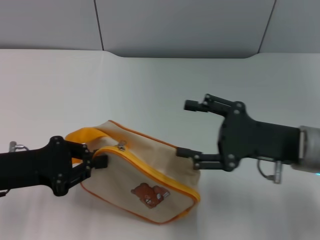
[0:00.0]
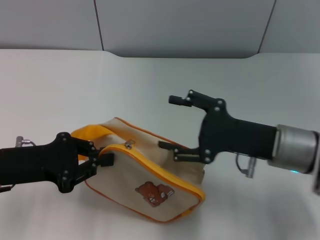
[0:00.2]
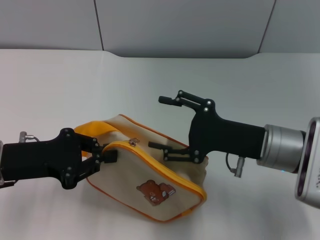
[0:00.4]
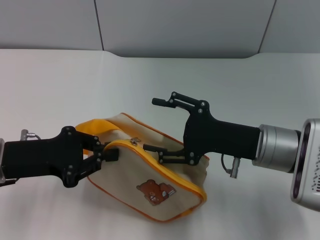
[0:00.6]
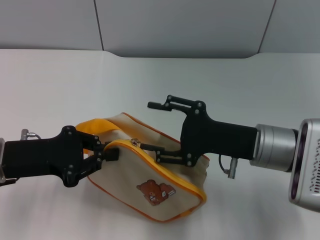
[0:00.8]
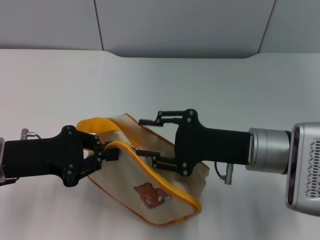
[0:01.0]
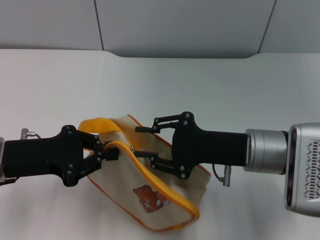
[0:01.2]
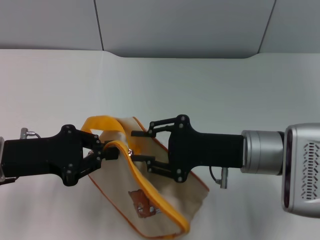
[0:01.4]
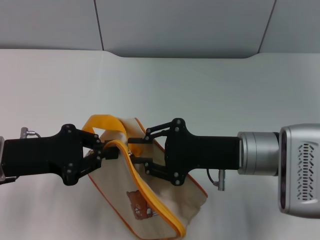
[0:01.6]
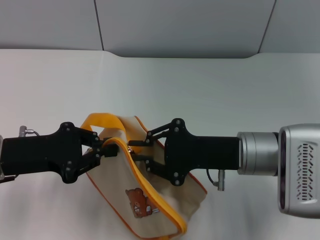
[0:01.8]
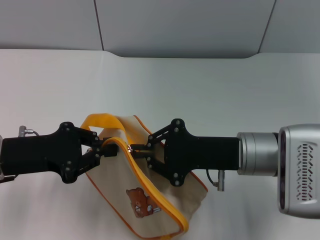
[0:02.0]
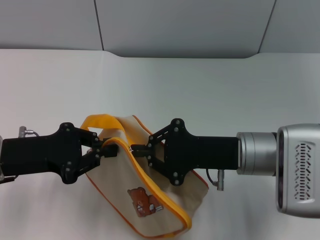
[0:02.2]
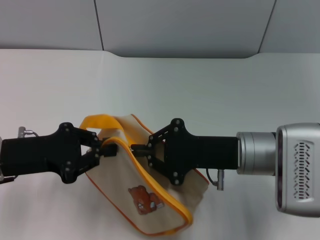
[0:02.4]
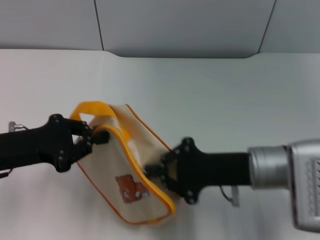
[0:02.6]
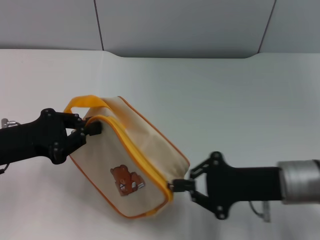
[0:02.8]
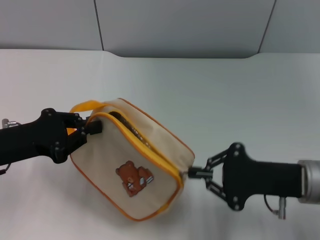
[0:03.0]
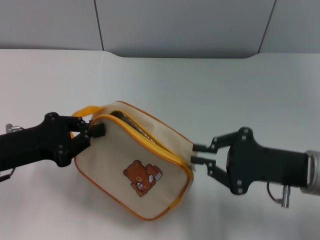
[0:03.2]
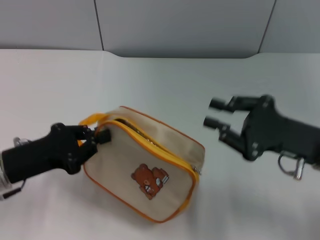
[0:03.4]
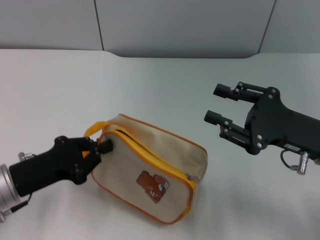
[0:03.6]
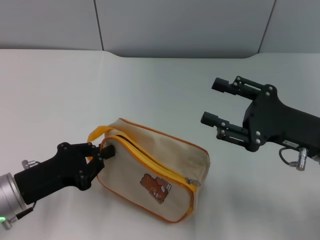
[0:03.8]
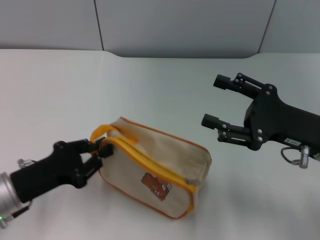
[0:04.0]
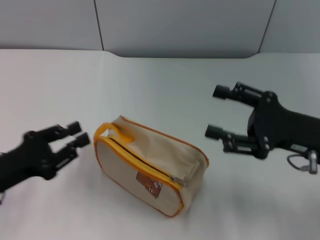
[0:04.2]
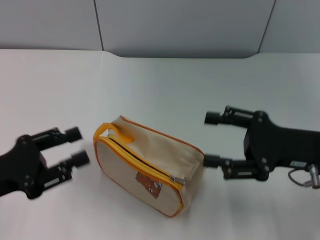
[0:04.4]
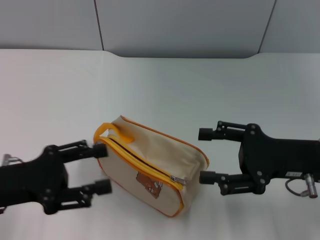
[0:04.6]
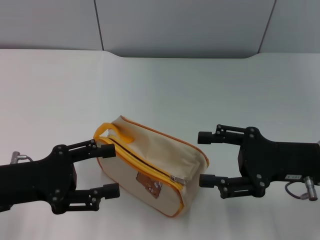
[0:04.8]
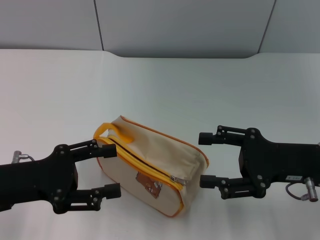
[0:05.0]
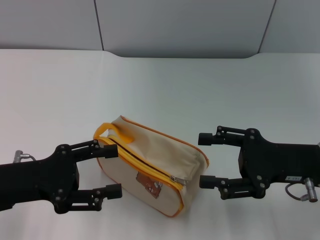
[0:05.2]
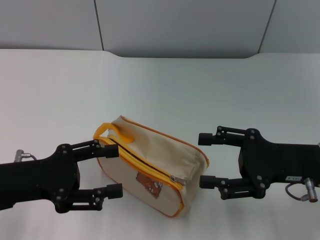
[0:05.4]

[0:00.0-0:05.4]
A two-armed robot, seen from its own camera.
Step, 0:00.0 to 0:03.2: Unzip the zipper of bag with right gripper.
Step, 0:03.4 to 0:04.0: Place the bag on the table with left gripper.
0:00.0 to 0:01.4: The right gripper goes approximately 5 cm to the left, and closes.
0:01.4 to 0:02.8: The right gripper travels to the right by roughly 5 cm, and closes.
0:02.8 to 0:04.0: The right gripper ends up some 5 cm from where it was, and opens its fingers. Meanwhile the left gripper shifts about 5 cm downward.
0:04.0 to 0:05.4: The left gripper heads upward, covering about 5 cm, and opens up.

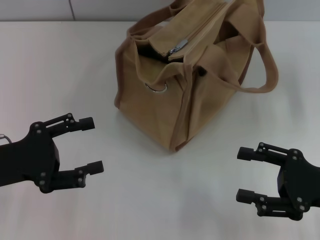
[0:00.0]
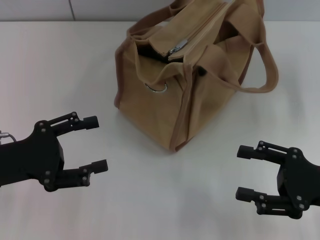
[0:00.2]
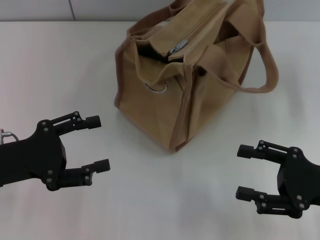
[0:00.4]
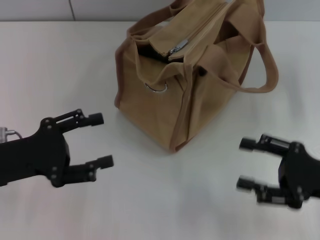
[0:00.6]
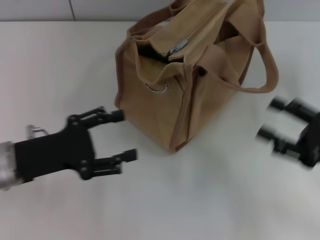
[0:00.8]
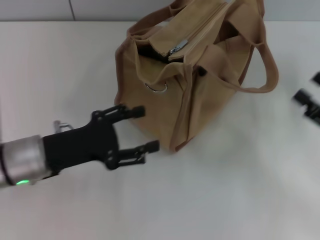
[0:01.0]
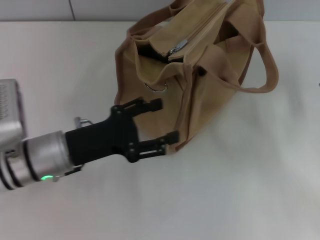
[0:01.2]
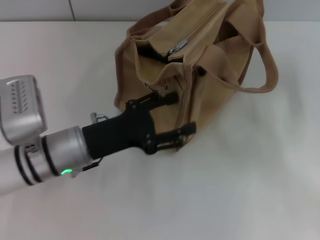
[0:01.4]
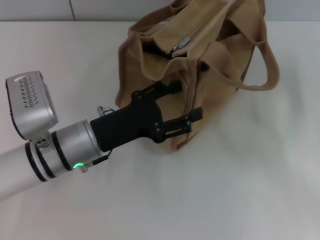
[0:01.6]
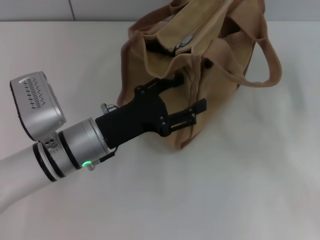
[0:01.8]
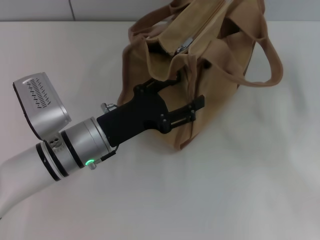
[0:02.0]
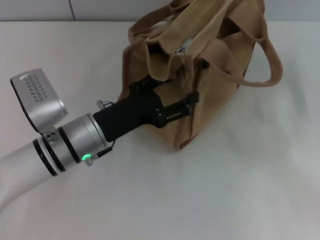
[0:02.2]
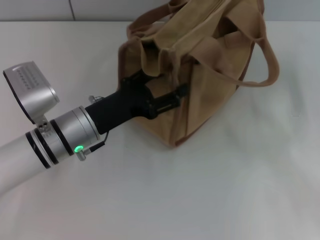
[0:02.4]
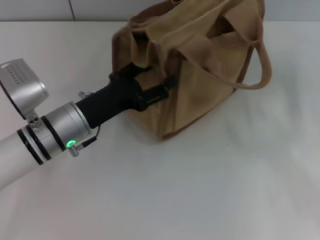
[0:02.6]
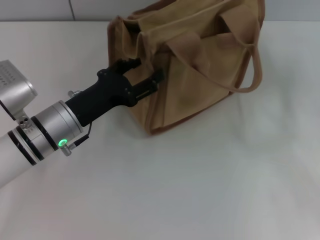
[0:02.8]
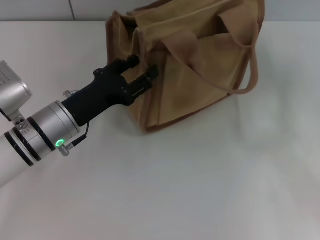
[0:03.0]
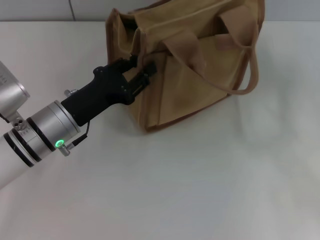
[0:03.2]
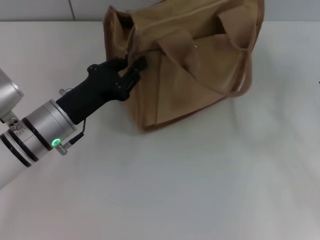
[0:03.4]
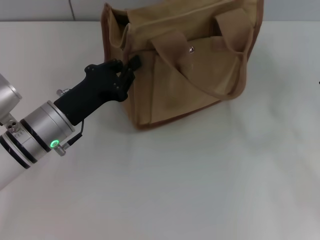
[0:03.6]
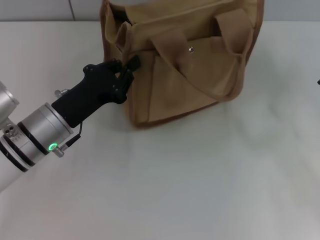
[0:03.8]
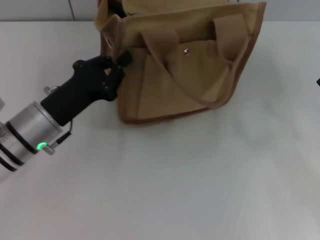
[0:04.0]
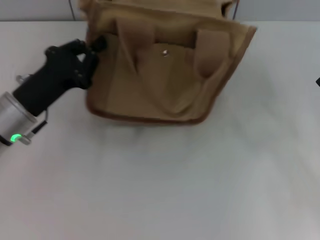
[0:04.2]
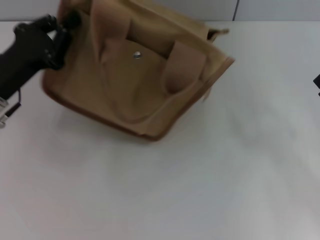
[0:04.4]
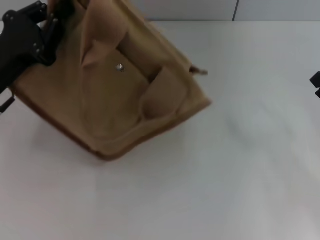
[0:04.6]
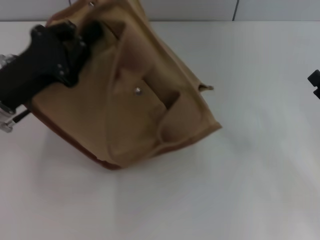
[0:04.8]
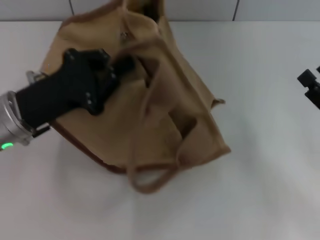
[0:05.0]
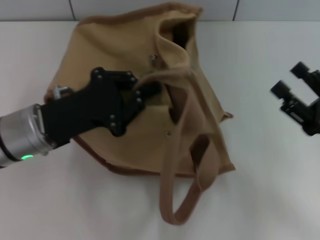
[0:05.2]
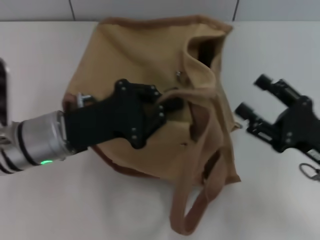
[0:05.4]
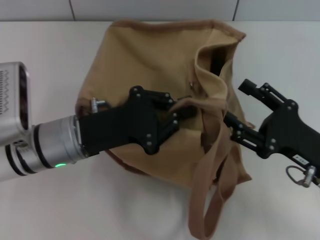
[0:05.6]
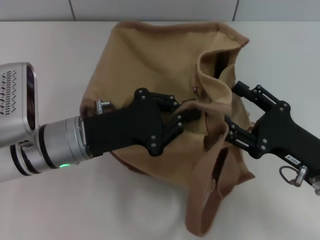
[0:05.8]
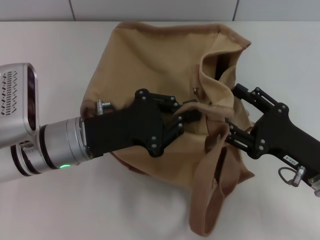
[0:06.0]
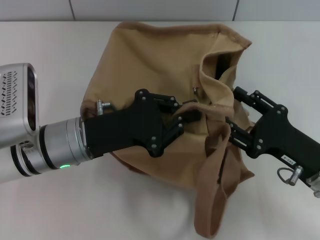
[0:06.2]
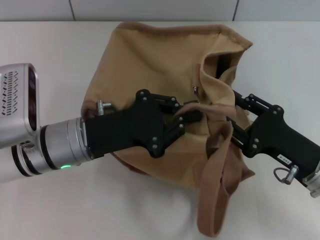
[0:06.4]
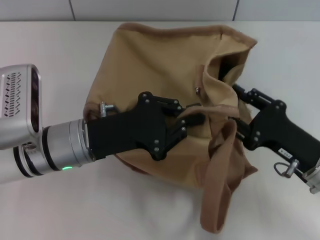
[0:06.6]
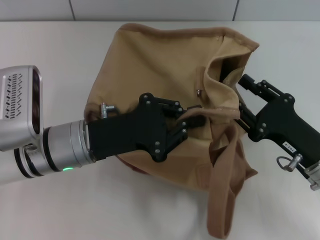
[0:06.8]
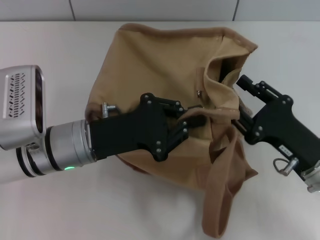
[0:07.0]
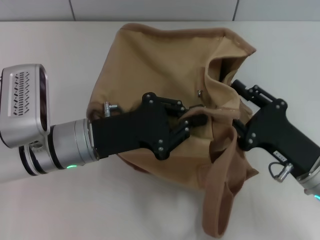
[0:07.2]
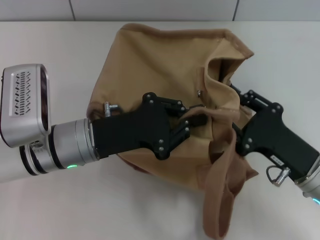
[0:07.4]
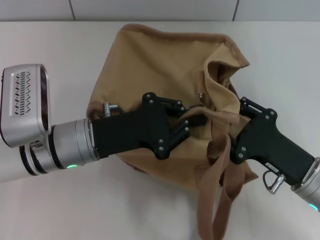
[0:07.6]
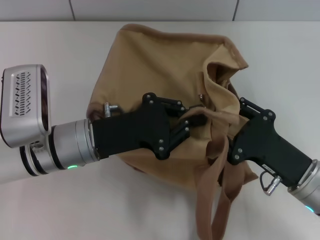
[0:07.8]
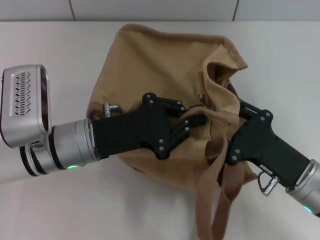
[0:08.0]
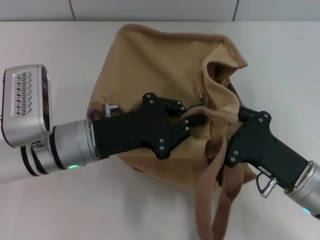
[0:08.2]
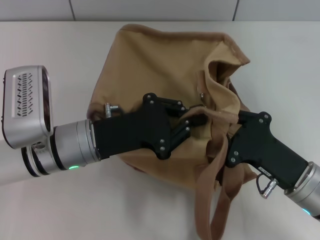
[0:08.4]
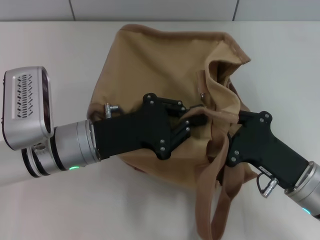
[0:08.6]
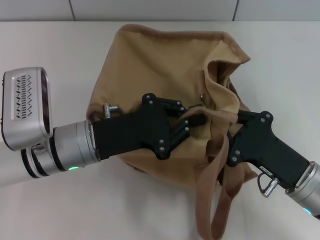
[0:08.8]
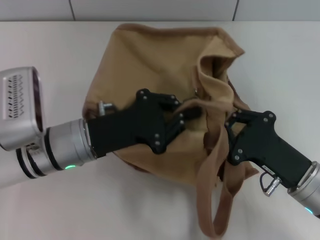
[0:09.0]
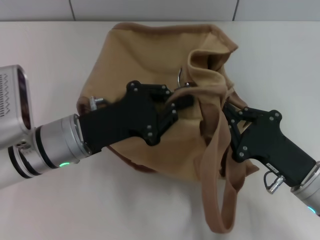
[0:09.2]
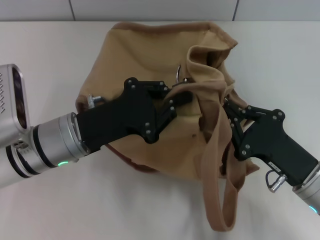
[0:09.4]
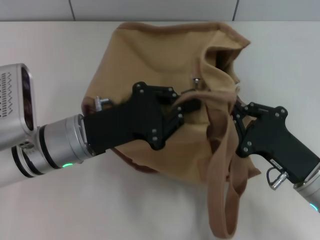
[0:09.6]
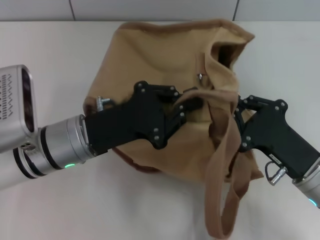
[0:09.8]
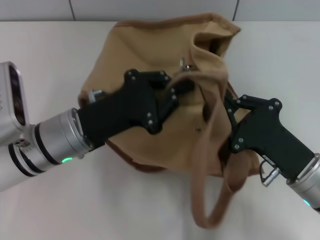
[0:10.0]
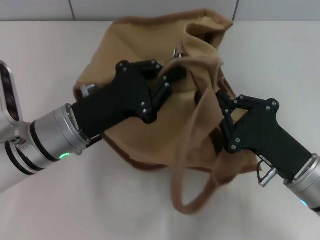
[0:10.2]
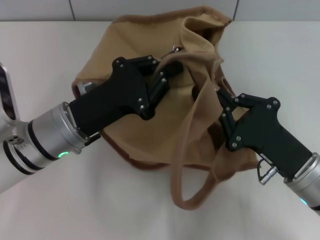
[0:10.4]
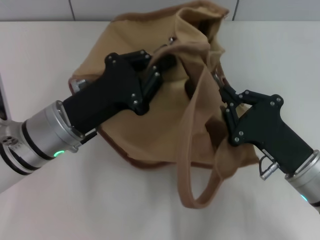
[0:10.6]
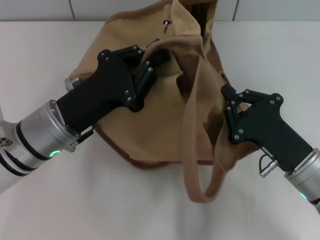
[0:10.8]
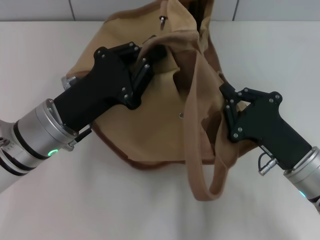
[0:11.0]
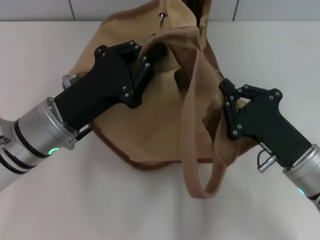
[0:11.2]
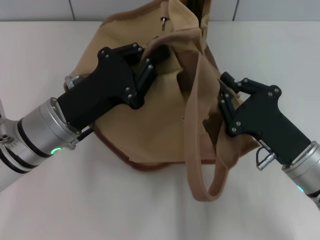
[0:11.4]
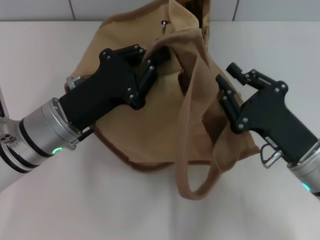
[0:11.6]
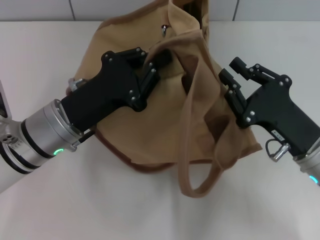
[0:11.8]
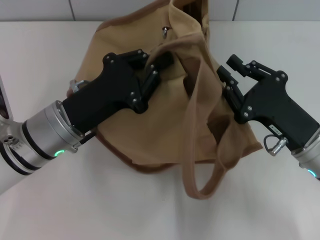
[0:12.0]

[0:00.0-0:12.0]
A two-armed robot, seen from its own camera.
0:00.0 to 0:01.6: The left gripper moves to the right, approximately 15 cm. The right gripper moves to the right, some 5 cm.
0:03.0 to 0:04.4: The left gripper moves to the left, approximately 10 cm, and closes its fingers.
0:04.4 to 0:06.0: The right gripper moves to the left, some 10 cm; the left gripper goes roughly 10 cm to the right.
0:07.6 to 0:09.0: The right gripper closes up.

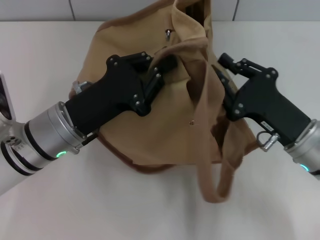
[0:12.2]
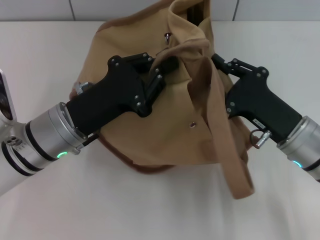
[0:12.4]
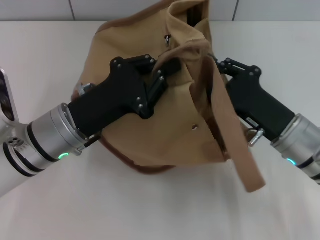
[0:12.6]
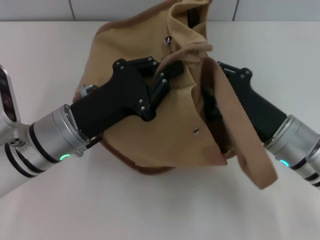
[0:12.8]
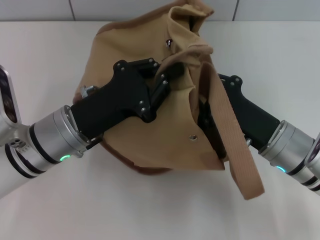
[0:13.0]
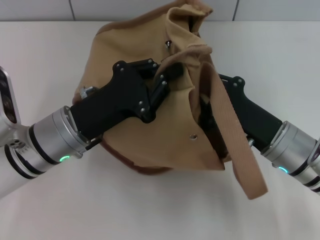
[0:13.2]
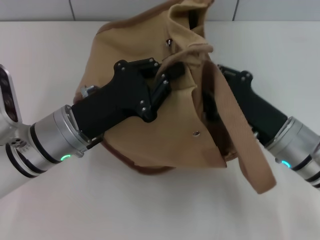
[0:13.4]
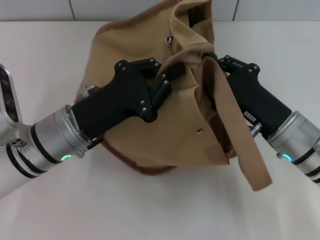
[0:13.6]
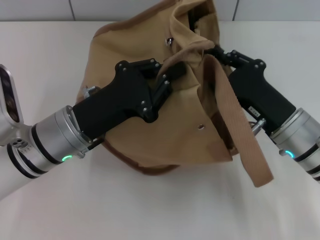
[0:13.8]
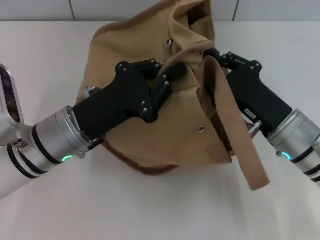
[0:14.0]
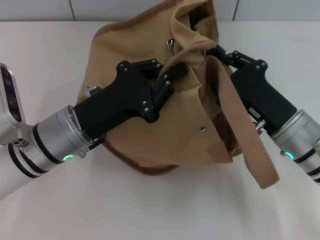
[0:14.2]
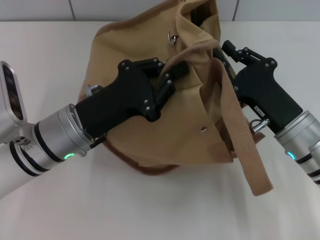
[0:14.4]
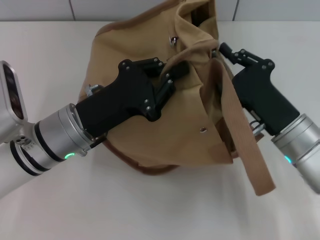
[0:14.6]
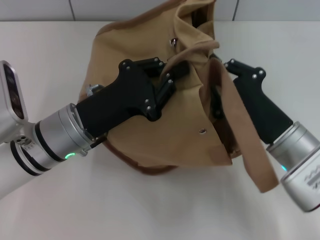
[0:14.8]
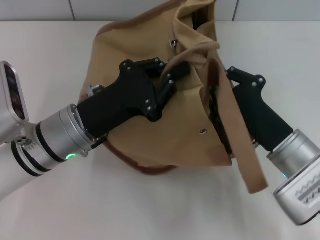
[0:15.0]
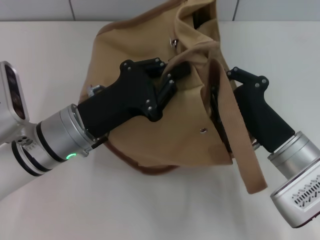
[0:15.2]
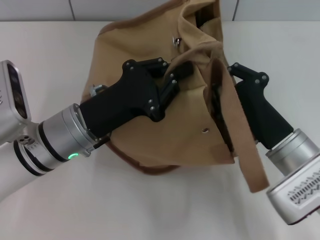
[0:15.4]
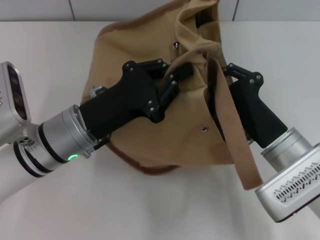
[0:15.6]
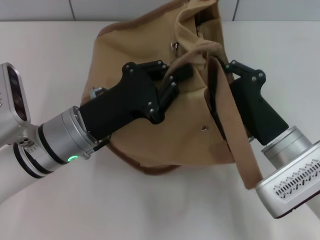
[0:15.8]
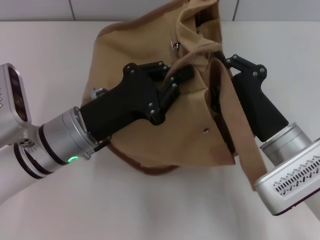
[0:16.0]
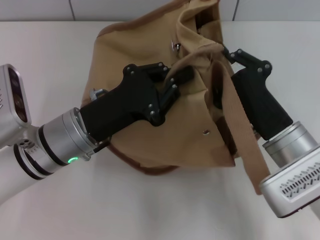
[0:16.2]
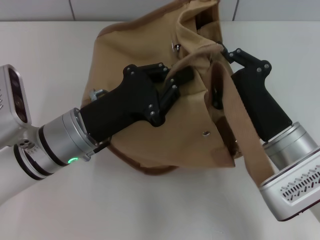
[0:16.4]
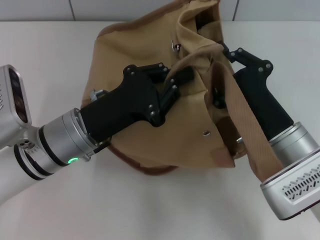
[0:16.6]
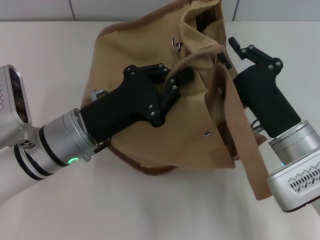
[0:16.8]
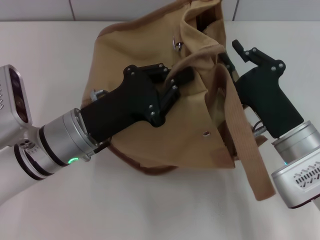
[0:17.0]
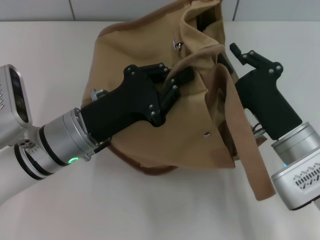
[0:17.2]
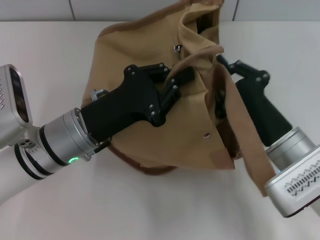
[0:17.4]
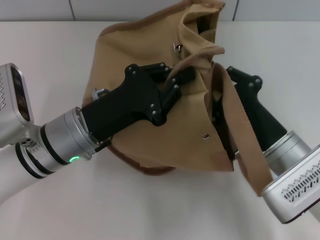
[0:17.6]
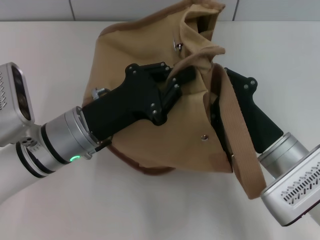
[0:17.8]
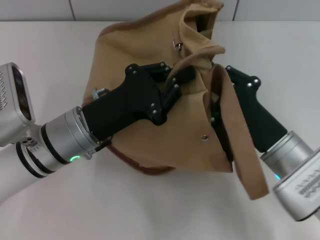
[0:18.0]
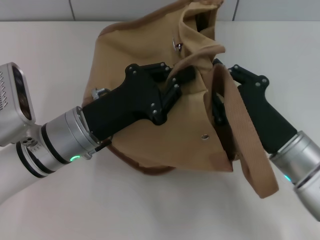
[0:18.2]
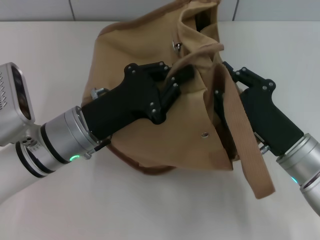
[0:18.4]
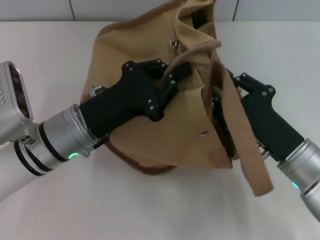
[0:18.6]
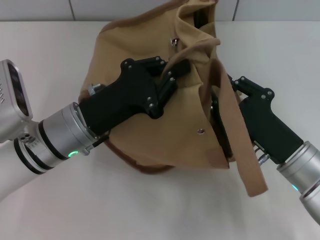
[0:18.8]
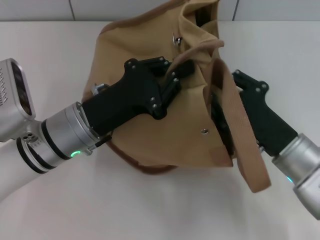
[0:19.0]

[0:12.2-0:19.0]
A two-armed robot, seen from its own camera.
0:15.0 to 0:19.0: The grippers move only a little.
